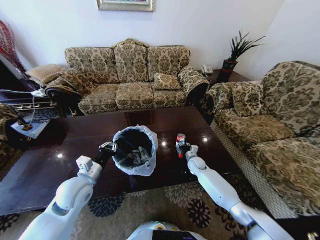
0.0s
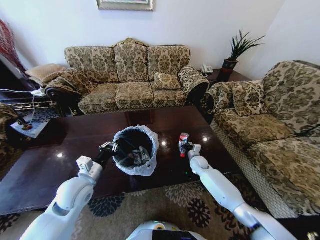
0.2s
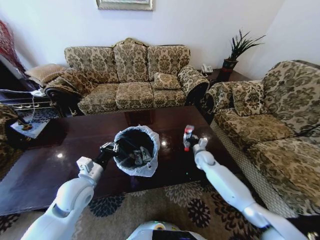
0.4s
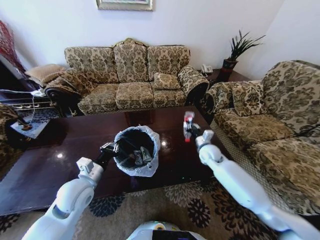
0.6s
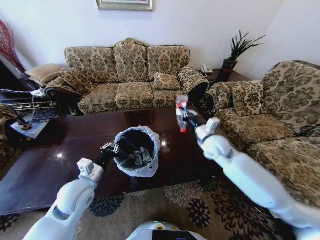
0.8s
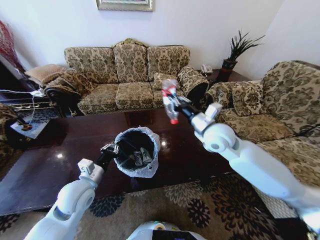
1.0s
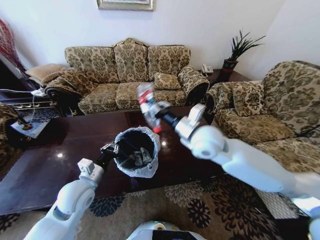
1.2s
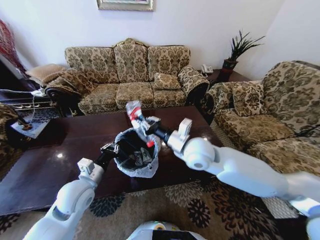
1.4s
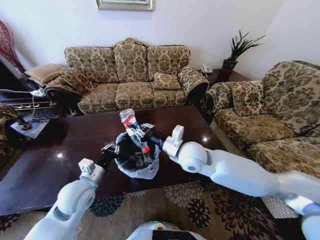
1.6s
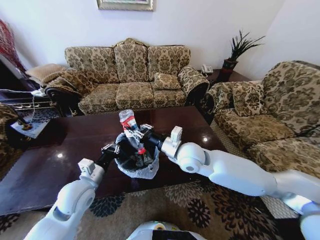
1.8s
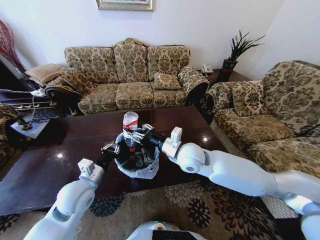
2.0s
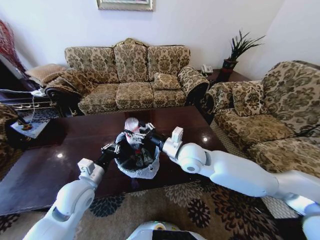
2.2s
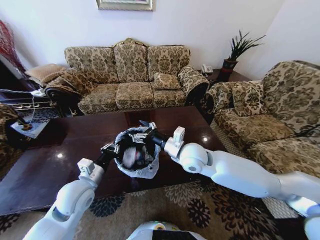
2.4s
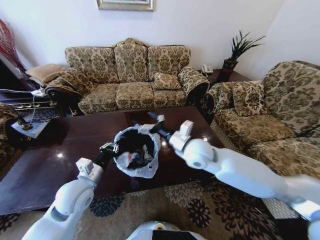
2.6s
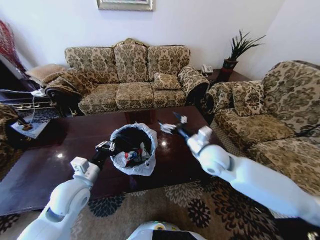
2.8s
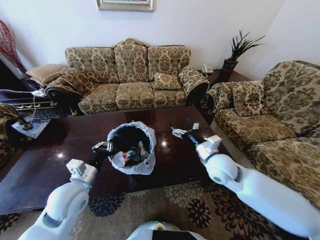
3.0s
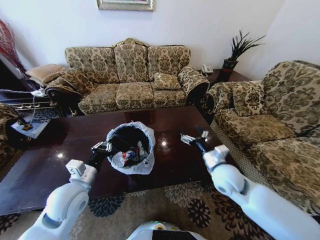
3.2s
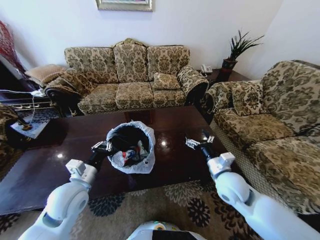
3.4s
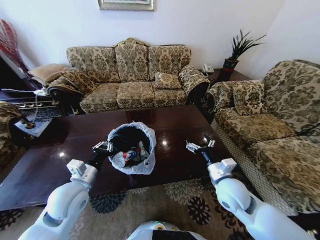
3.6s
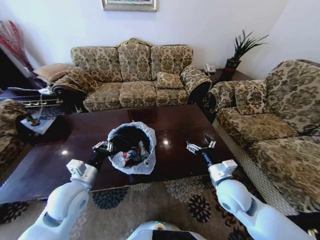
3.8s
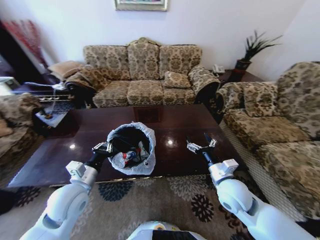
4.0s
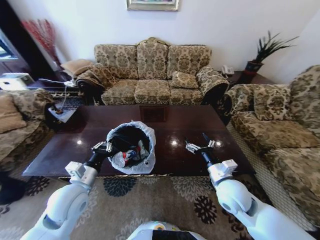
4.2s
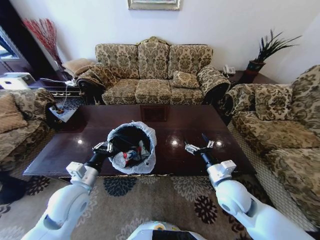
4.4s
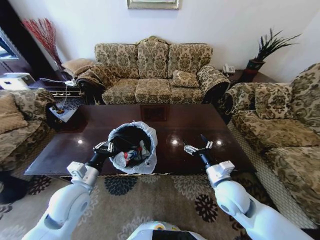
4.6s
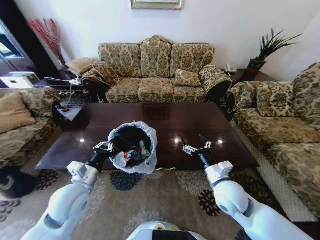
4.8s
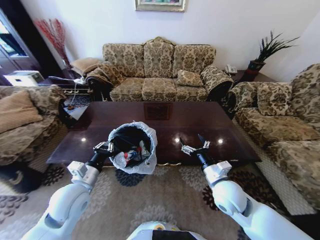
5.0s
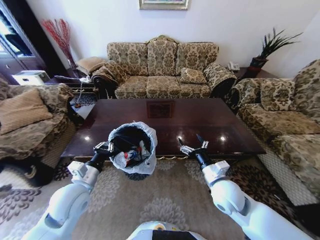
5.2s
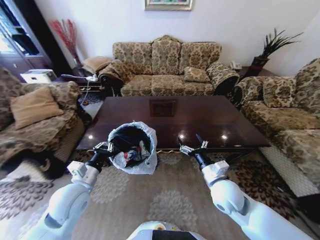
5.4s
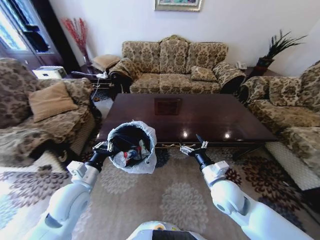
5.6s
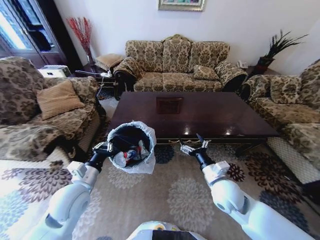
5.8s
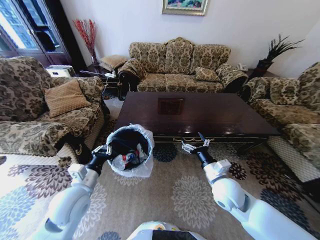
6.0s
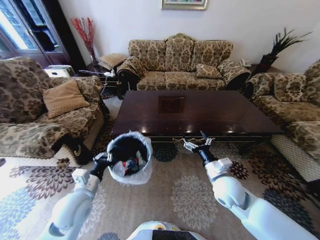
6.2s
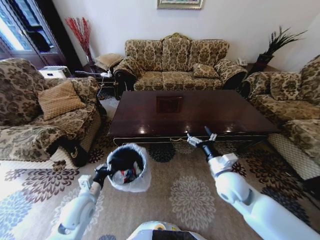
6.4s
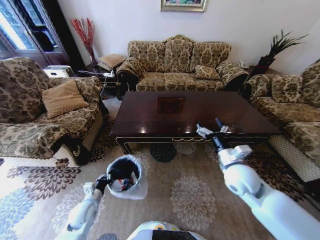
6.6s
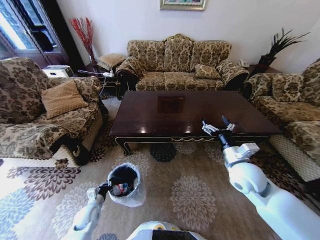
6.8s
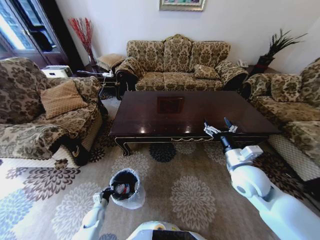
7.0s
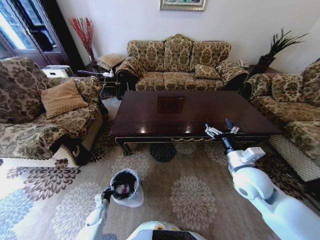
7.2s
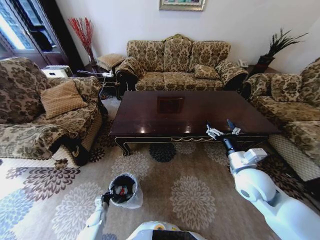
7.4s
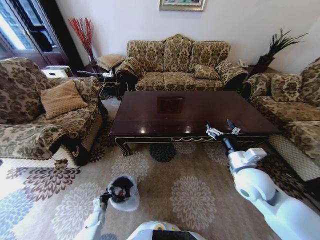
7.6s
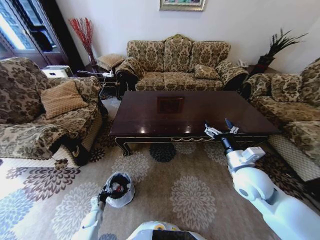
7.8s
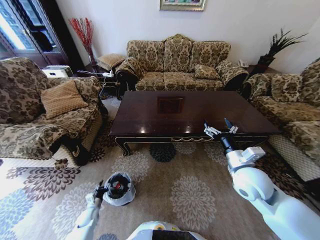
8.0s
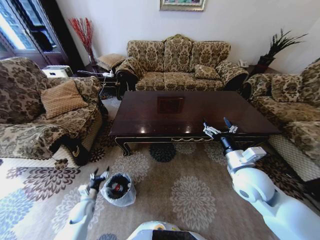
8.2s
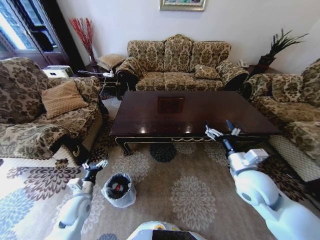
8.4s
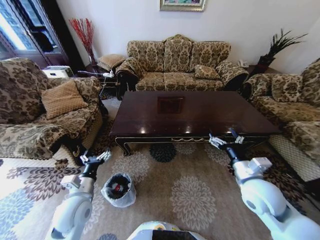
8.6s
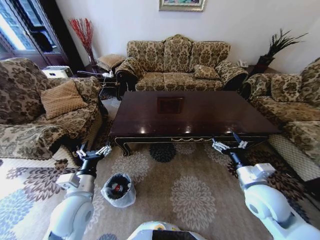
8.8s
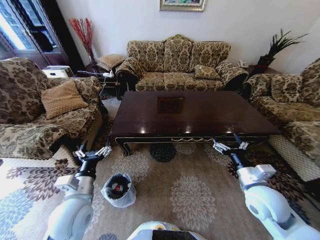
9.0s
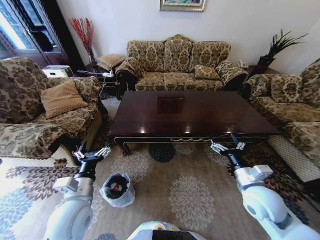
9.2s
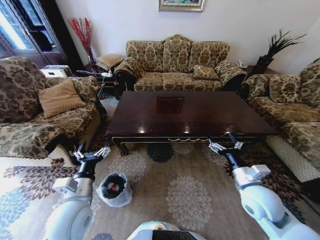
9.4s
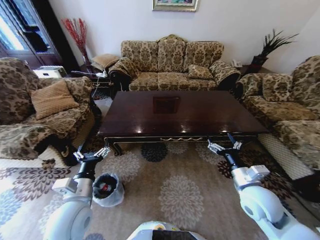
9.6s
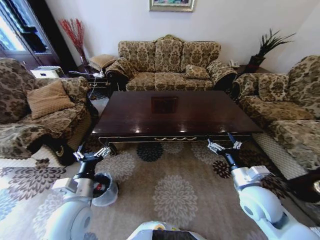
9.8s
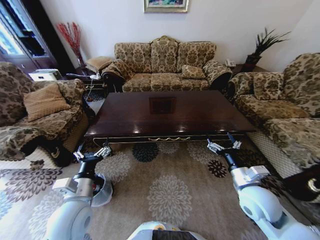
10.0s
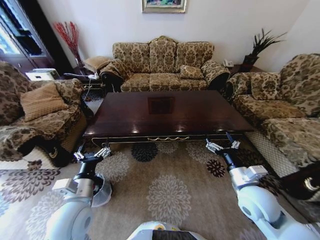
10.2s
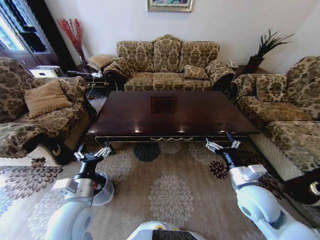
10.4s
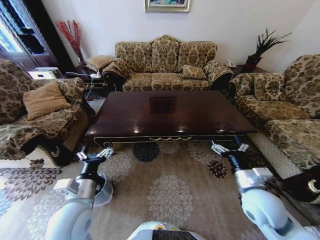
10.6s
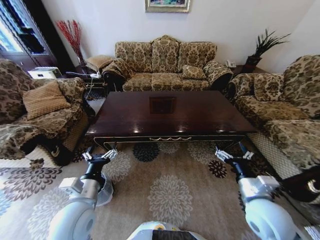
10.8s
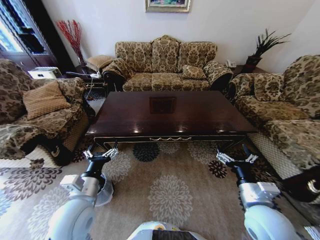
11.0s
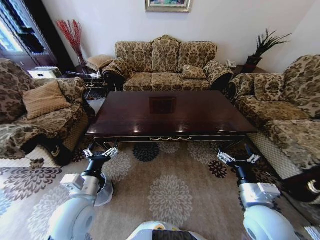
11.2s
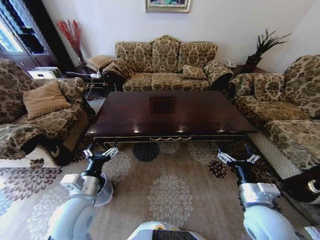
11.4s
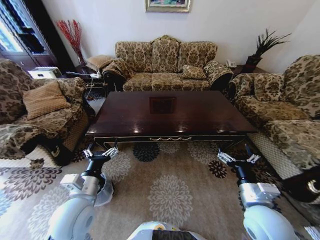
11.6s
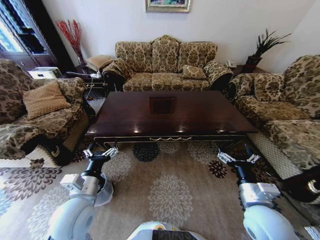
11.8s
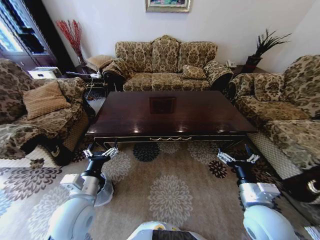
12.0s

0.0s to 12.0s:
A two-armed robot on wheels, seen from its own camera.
Task of the whole recording: Move to the front of the table and place the trash on the table into the trash bin.
0.0s to 1.6s: The right gripper travels upward, backward and to the left by approximately 35 cm, and closes its fingers.
1.6s to 3.0s: The right gripper goes some 10 cm to the right, and opens its fingers.
3.0s to 4.4s: The right gripper travels backward by roughly 10 cm.
6.0s to 7.6s: The left gripper travels downward by some 40 cm. Meanwhile the right gripper shifts approximately 10 cm to the right and upward.
7.6s to 9.0s: The right gripper changes place by some 5 cm. The left gripper goes about 40 cm upward, and opens.
10.4s to 12.0s: The right gripper heads backward, covering roughly 5 cm.

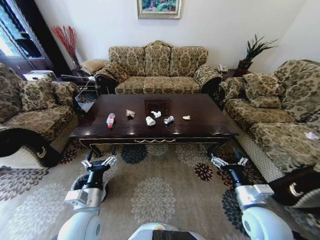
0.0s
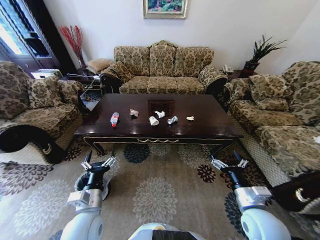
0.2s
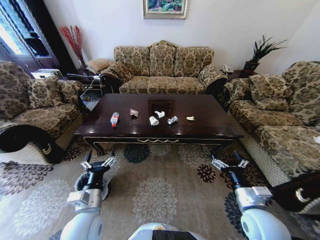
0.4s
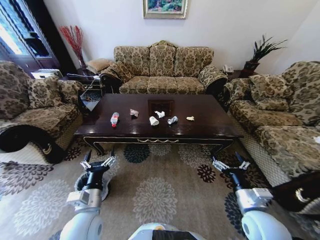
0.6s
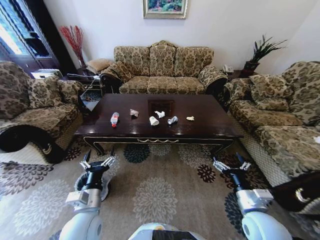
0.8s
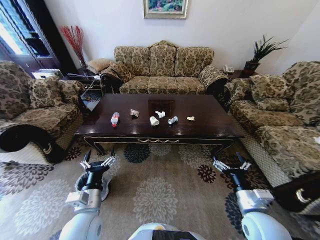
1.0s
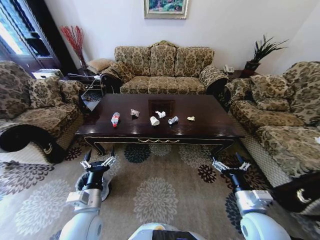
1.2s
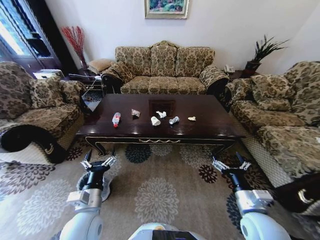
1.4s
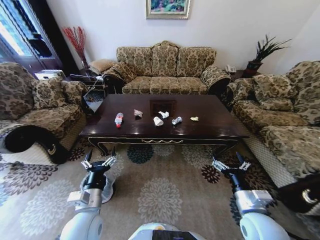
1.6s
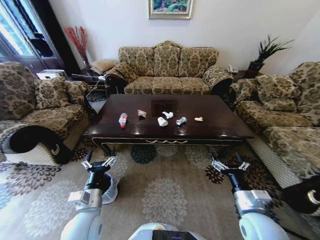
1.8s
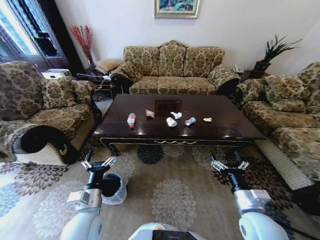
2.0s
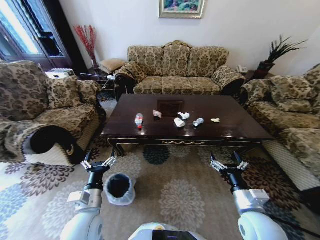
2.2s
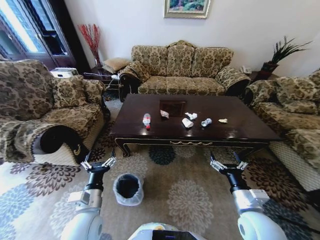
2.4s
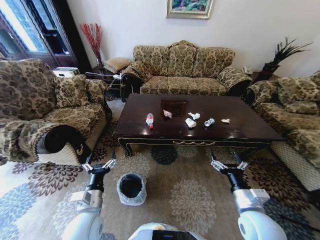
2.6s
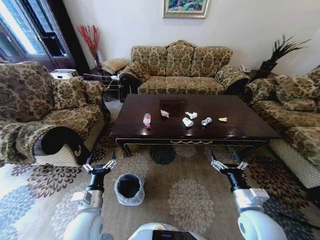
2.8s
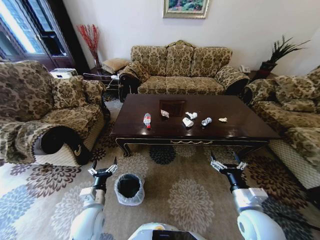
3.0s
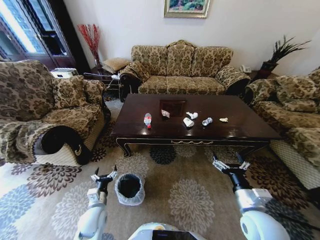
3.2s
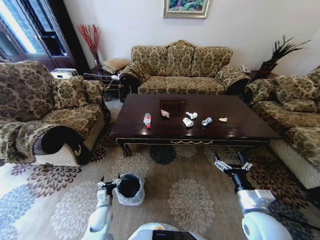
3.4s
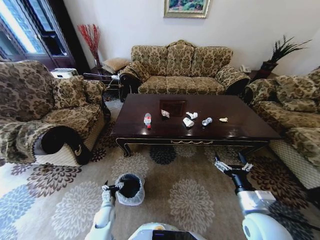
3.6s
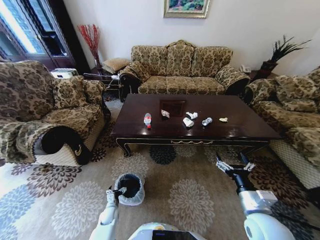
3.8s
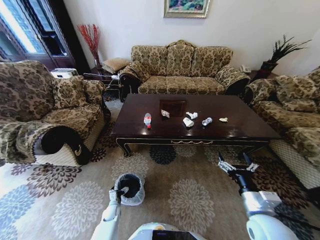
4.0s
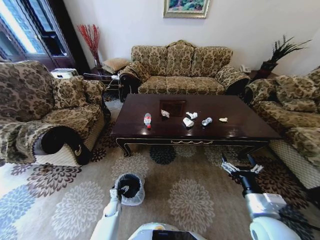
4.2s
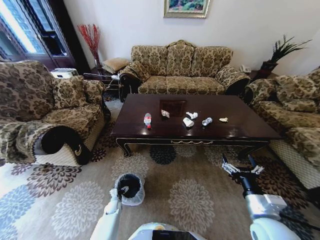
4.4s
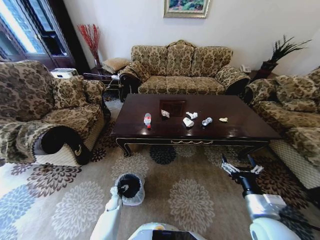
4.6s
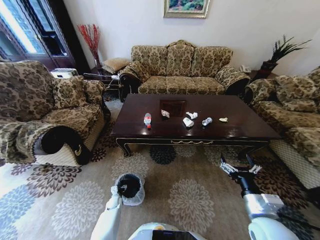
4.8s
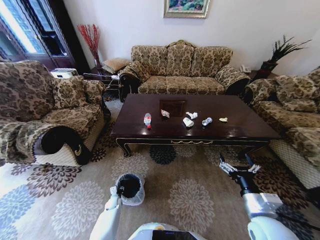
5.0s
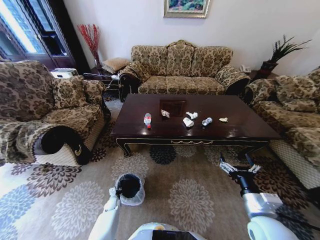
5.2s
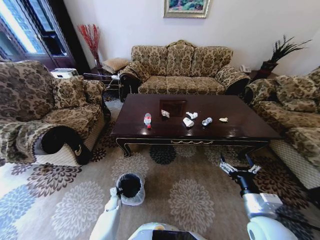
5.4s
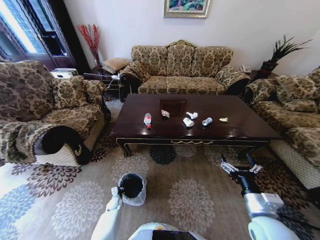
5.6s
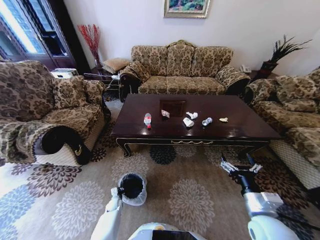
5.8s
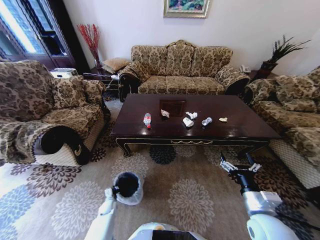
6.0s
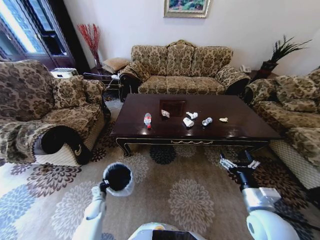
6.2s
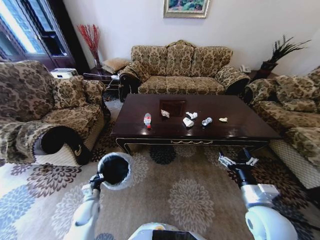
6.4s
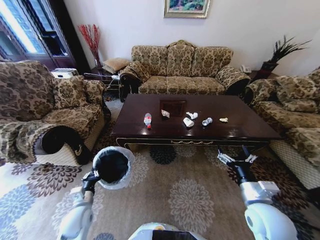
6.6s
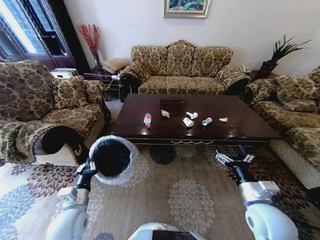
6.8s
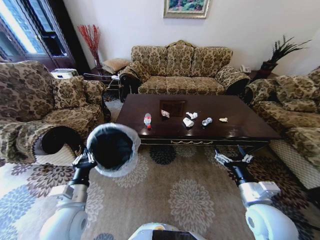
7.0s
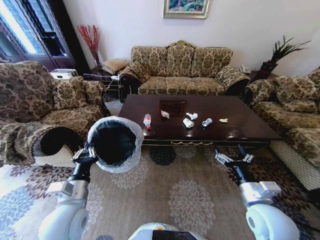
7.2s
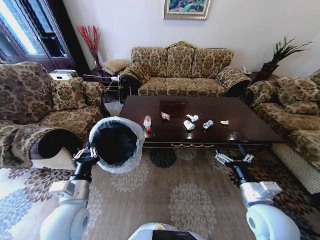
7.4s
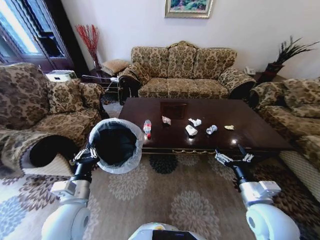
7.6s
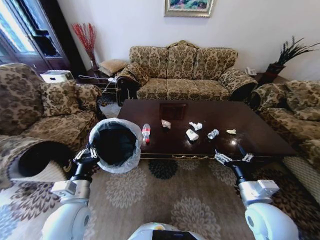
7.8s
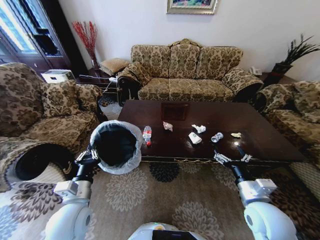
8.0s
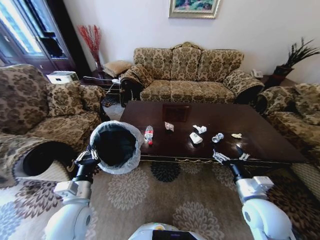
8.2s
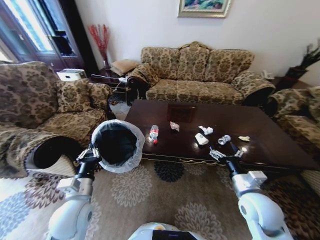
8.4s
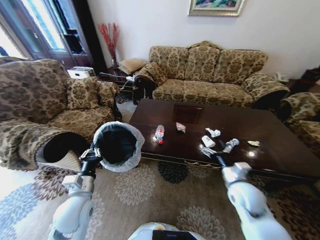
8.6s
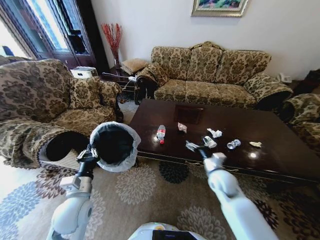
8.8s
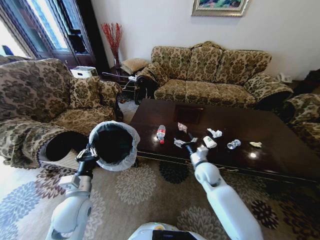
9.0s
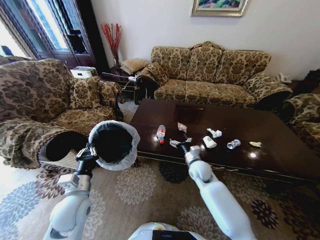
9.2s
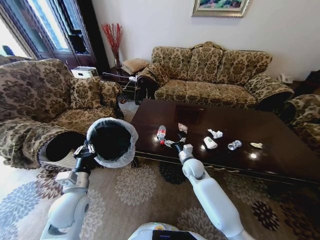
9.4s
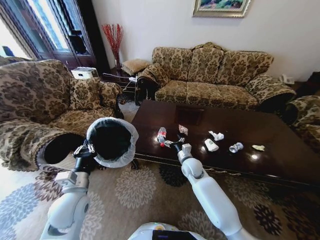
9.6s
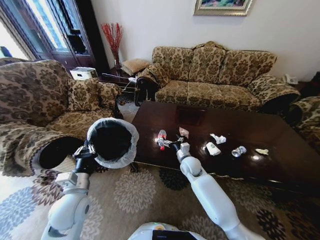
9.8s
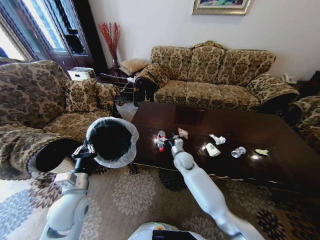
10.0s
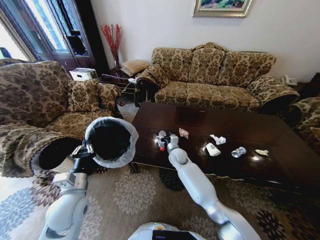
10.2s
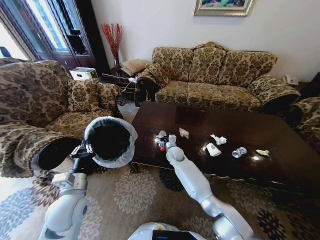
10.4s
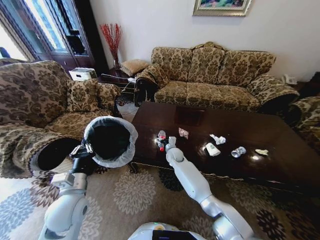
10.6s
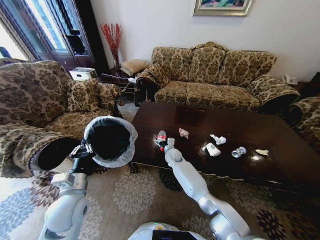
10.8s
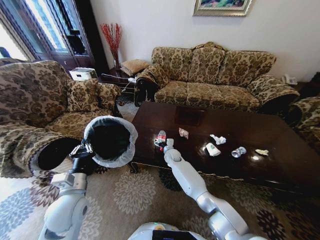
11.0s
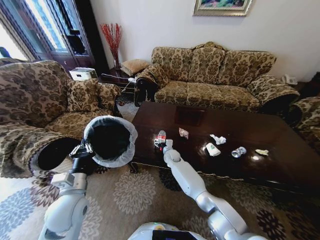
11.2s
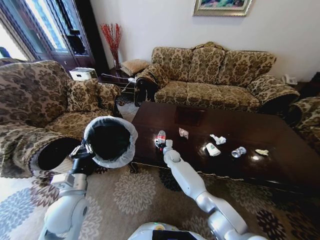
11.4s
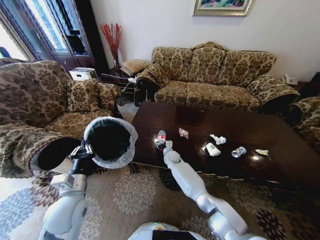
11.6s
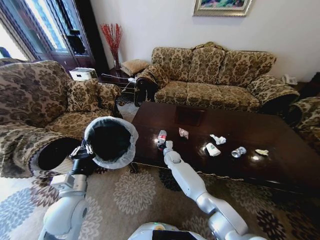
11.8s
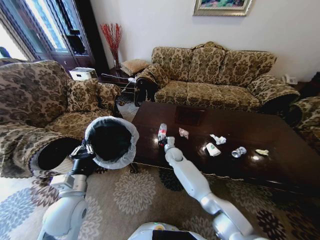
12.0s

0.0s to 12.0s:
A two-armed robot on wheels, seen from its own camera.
Task of the whole recording: Move to the front of the table and place the trash on the table into the trash bin.
1.6s to 3.0s: The left gripper shifts by roughly 5 cm.
3.0s to 4.4s: The left gripper shifts roughly 30 cm downward.
4.4s to 6.0s: The left gripper closes.
6.0s to 7.6s: The left gripper is displaced upward by some 40 cm.
7.6s to 9.0s: The right gripper is displaced forward and to the left by approximately 20 cm.
9.0s to 10.4s: The right gripper goes about 20 cm forward, to the left and downward.
10.4s to 12.0s: The right gripper closes its fingers.
